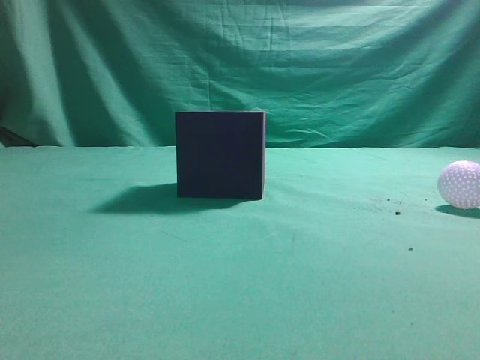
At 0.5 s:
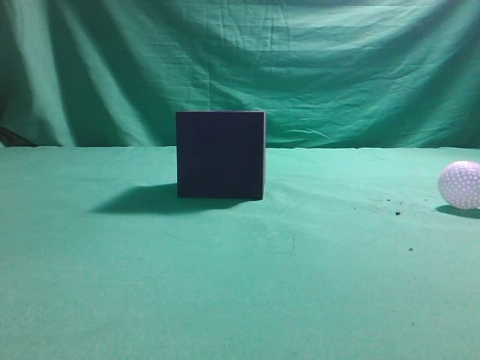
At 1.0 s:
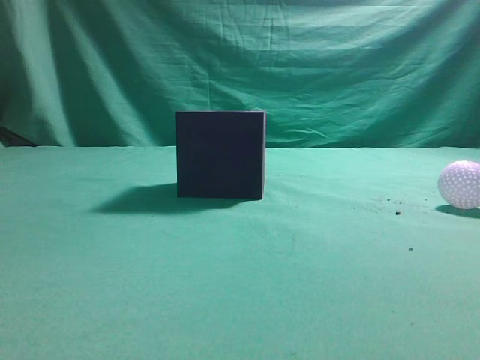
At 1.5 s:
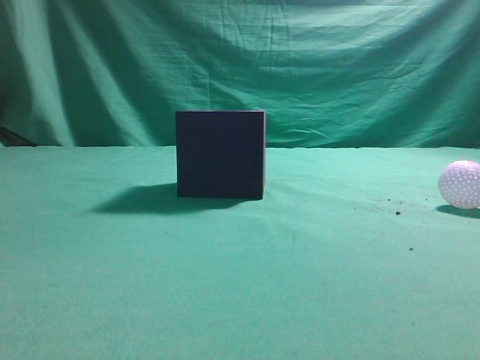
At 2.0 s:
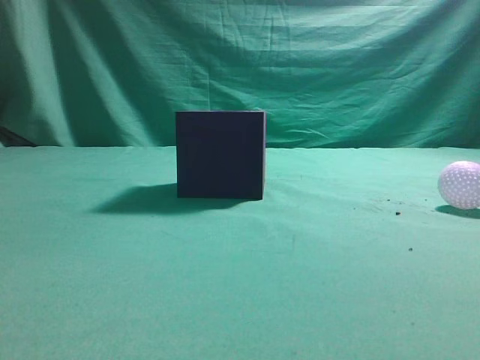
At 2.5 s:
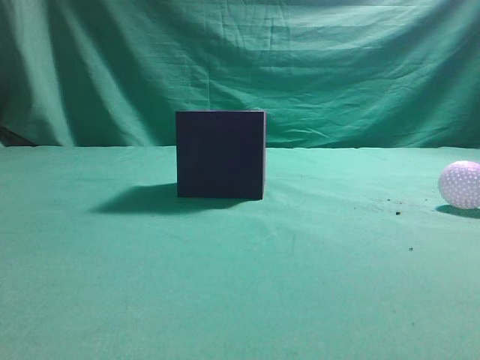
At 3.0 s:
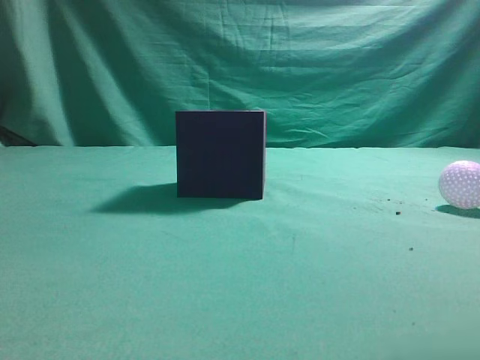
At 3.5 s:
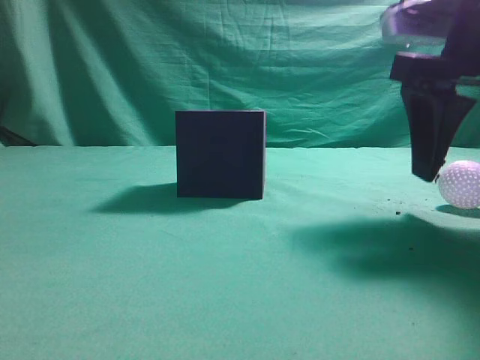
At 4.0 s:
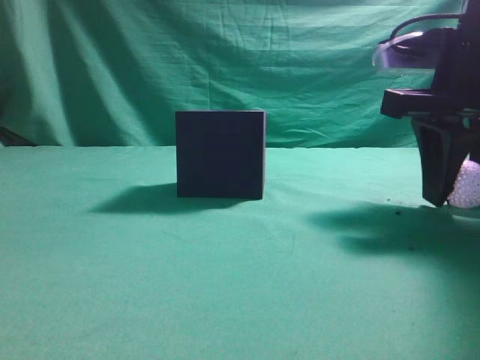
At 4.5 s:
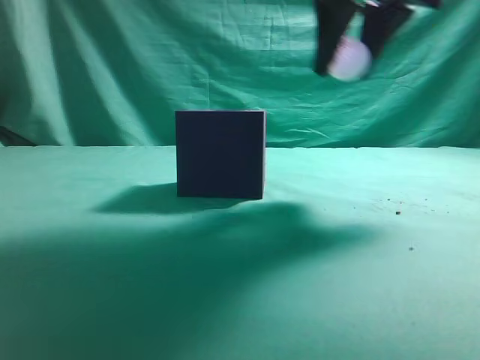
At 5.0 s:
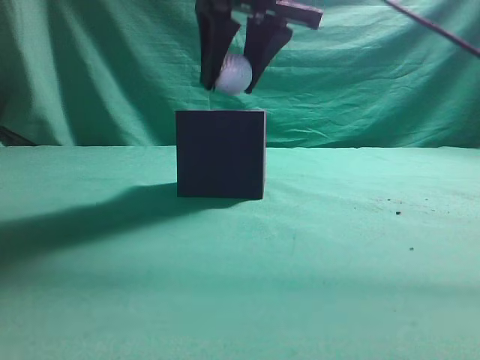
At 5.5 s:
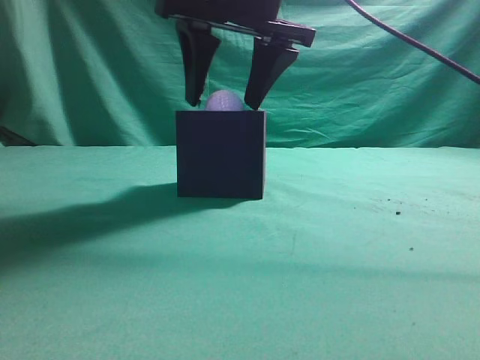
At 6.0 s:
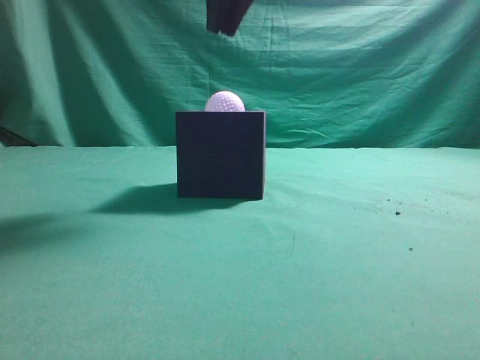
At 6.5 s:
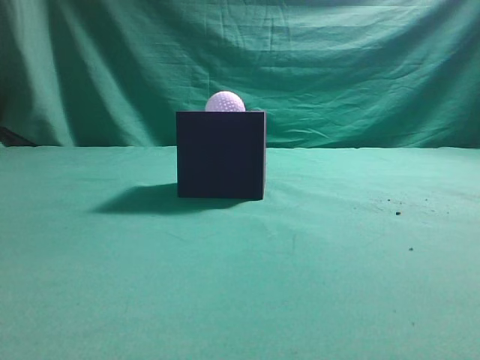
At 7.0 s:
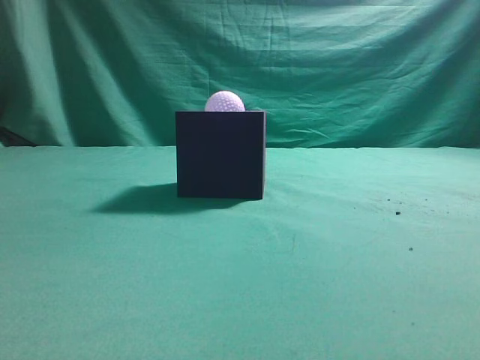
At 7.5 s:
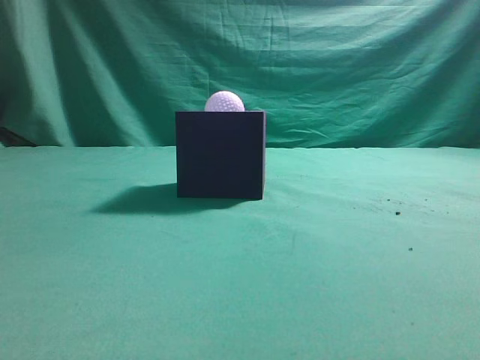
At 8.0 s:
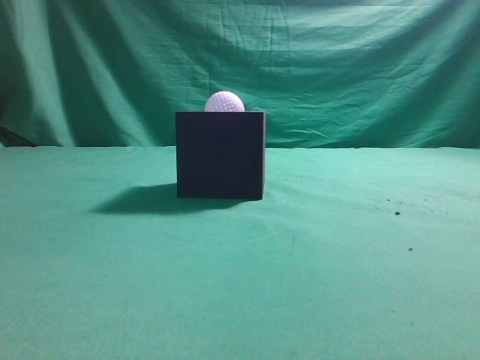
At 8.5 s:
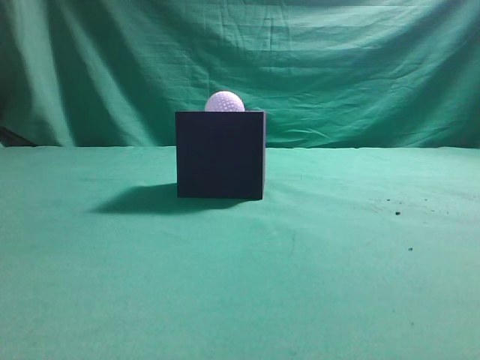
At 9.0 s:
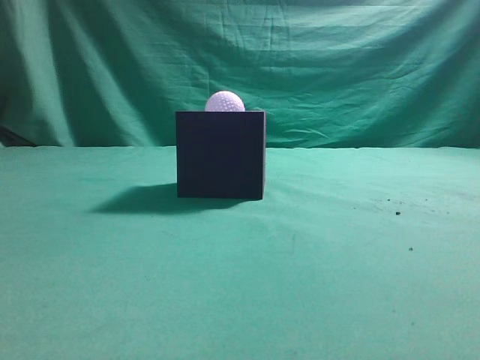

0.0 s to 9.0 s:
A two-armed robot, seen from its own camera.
Task of the whole recording: Pick up the ball and place it in the circular groove above the cube.
Step, 0.0 to 4.0 s: Grasp the sphere on the table.
Step, 4.5 to 5.5 s: Place the sphere into the sphere-shaped recess.
2.0 to 4.5 s: The right gripper is displaced forward and to the left by approximately 30 cm, and opens its fingers.
4.5 to 7.0 s: The right gripper heads backward and upward, covering some 25 cm, and closes up.
